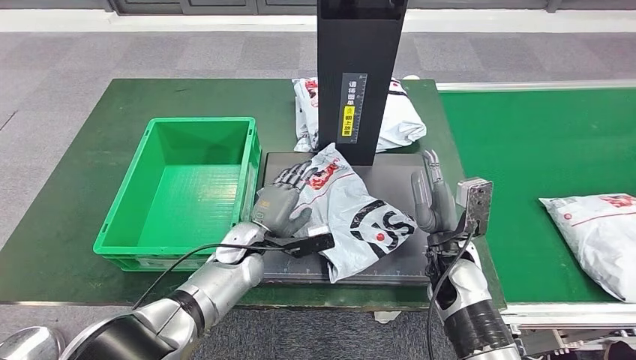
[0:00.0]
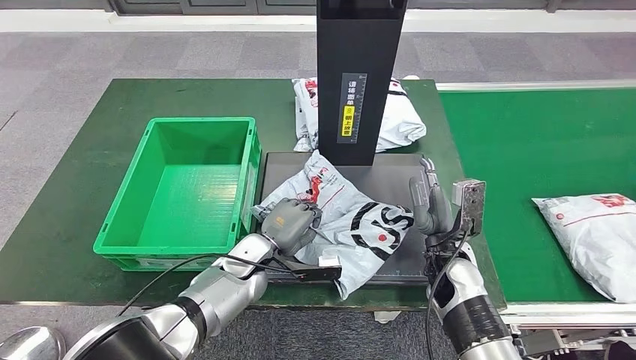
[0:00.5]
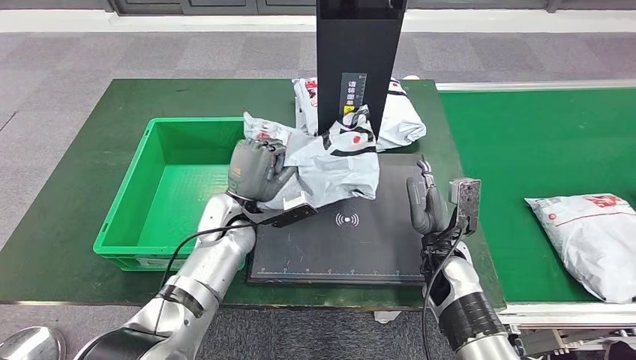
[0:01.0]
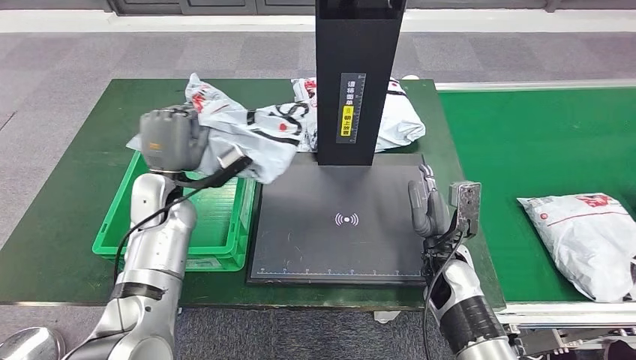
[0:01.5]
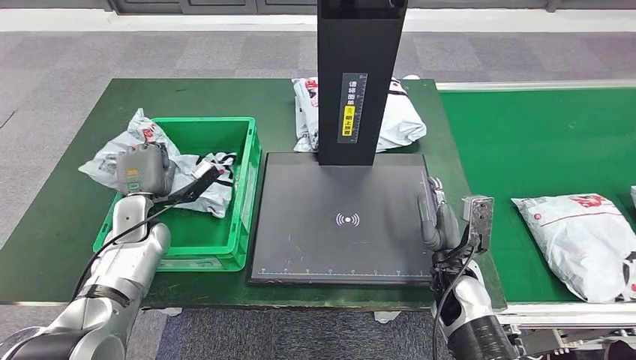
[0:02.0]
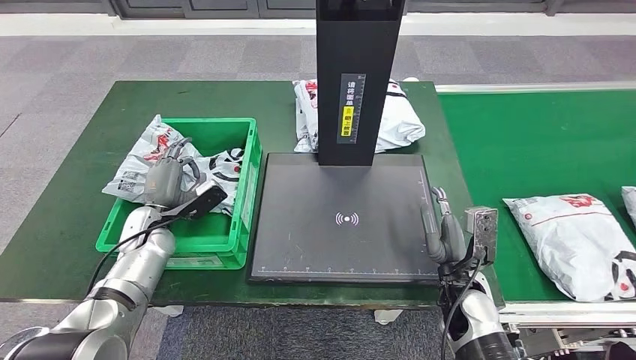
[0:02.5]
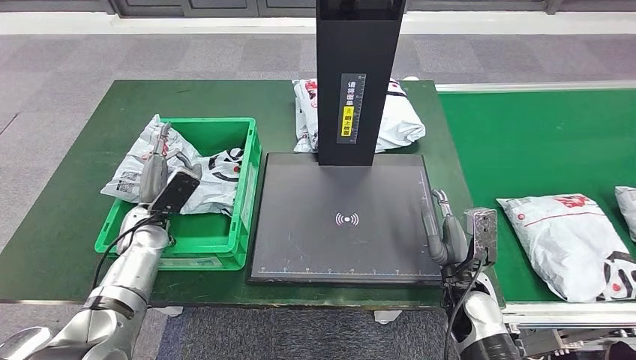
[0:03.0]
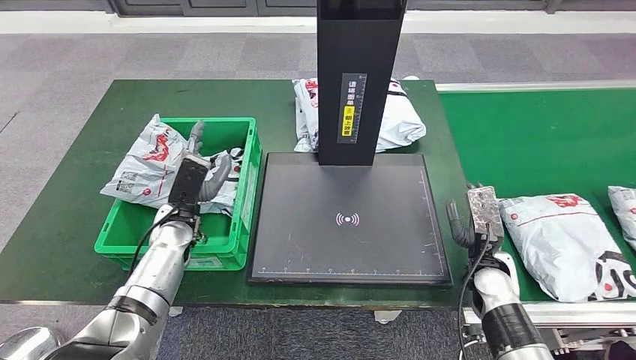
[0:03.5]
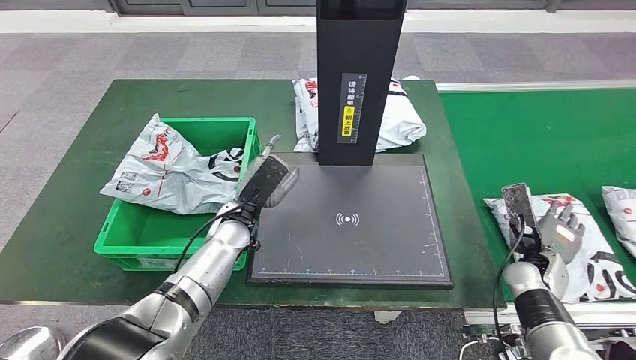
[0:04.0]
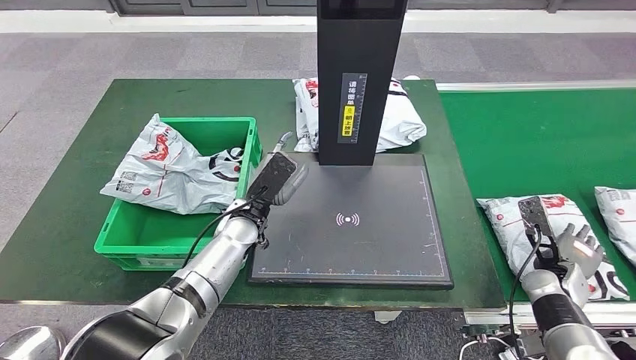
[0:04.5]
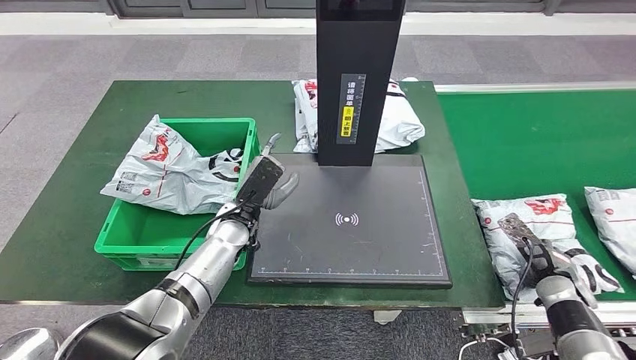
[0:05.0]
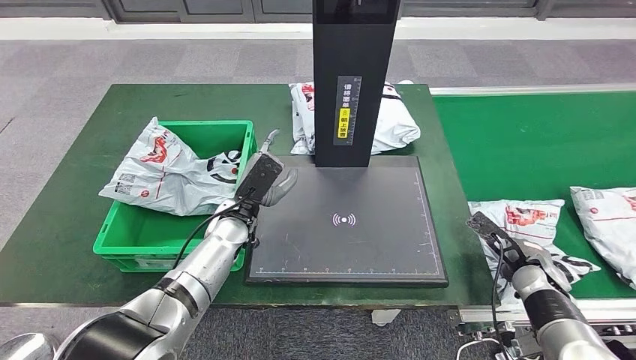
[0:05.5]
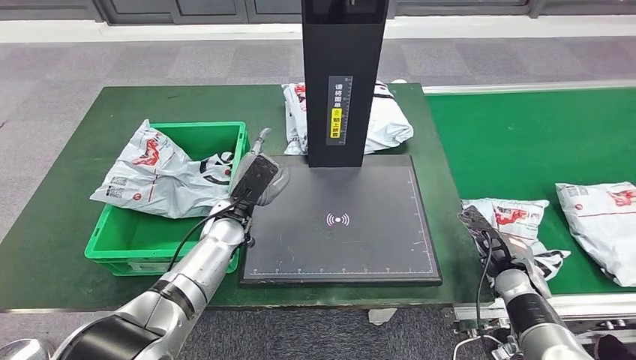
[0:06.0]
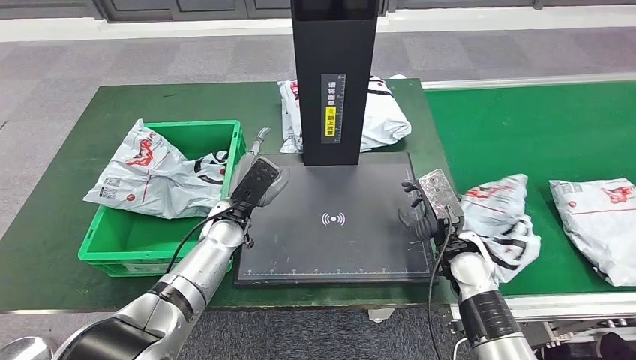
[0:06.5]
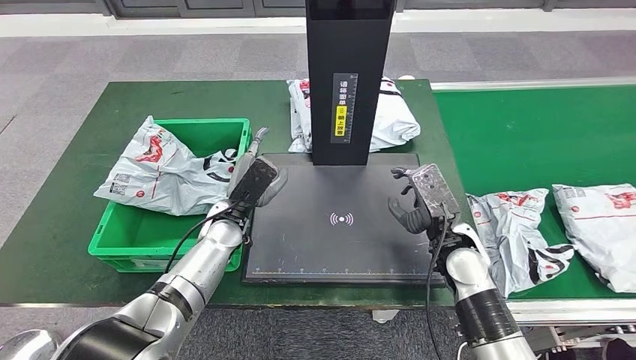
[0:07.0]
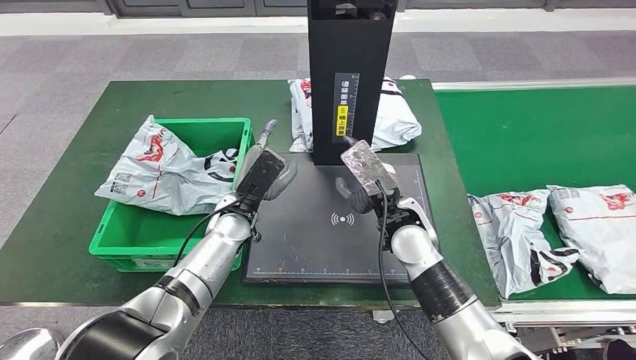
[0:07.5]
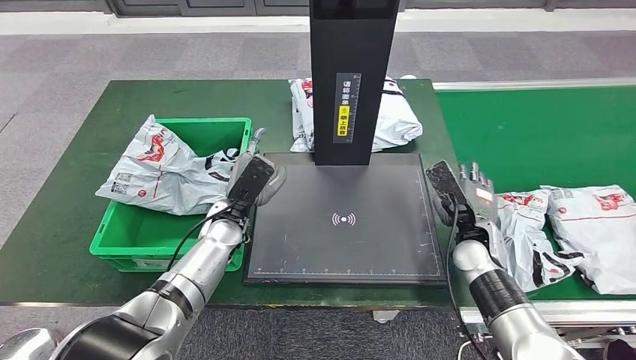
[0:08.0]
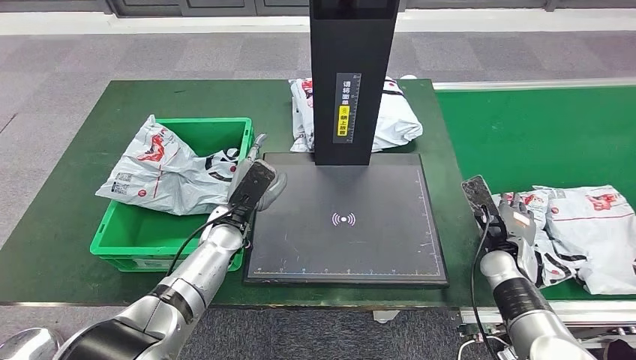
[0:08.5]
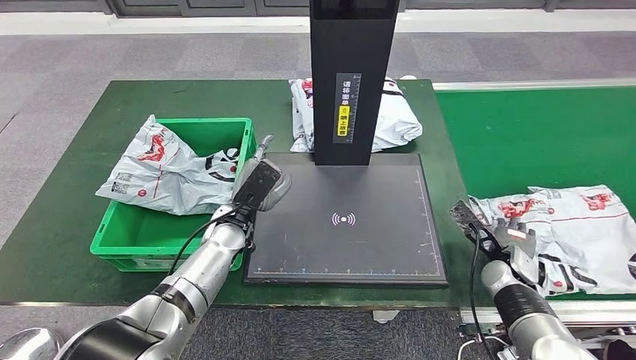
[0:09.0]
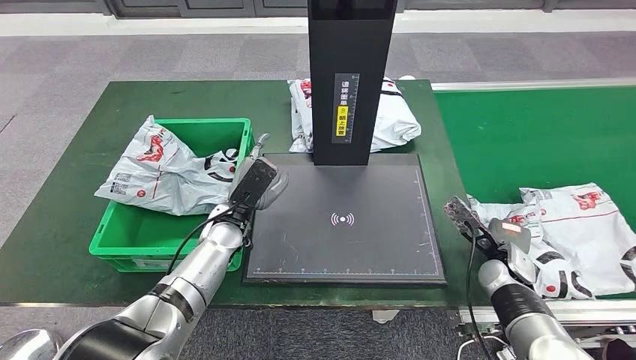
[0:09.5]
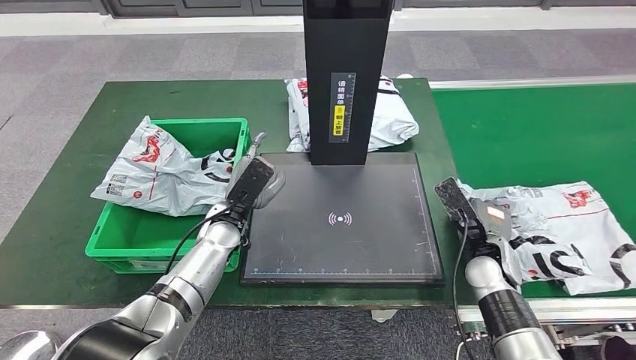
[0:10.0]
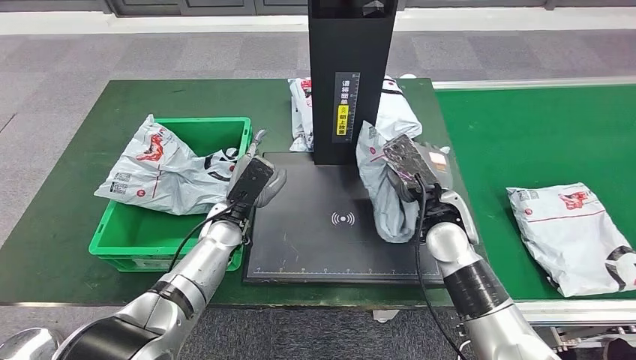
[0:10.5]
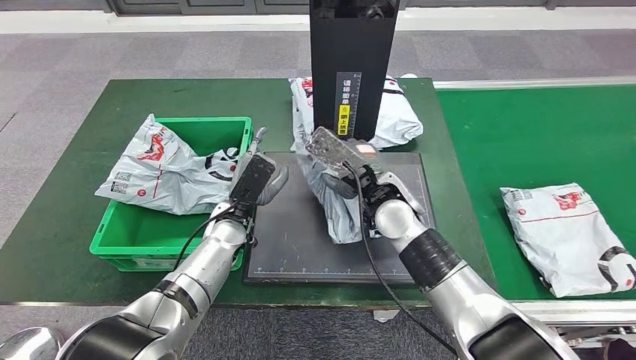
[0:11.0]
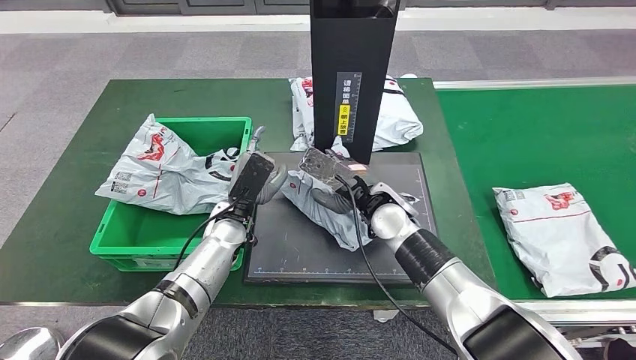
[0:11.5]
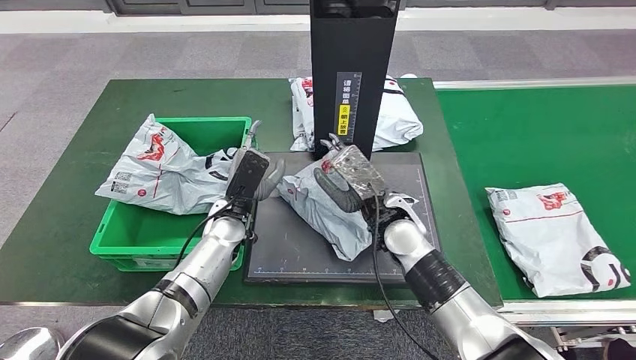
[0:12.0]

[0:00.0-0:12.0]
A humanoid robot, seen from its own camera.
Step, 0:00.0 to 0:01.5: Pick up the parcel from the inbound machine.
Step, 0:02.0 to 0:04.0: Put the parcel inside the courier box.
Step, 0:09.0 to 0:10.5: Pick up the parcel from the conveyor belt.

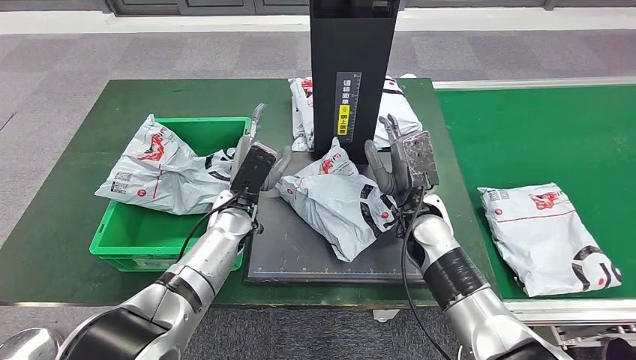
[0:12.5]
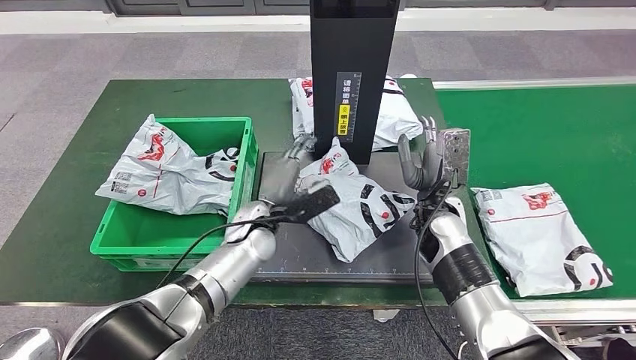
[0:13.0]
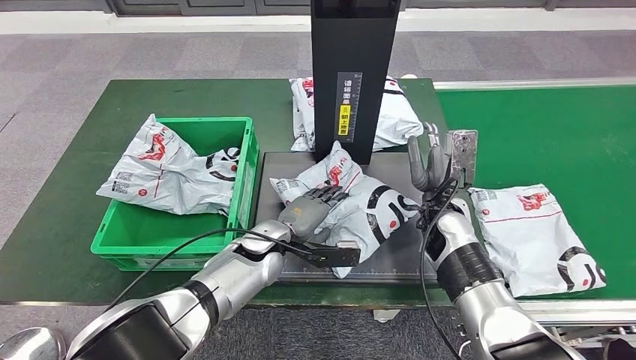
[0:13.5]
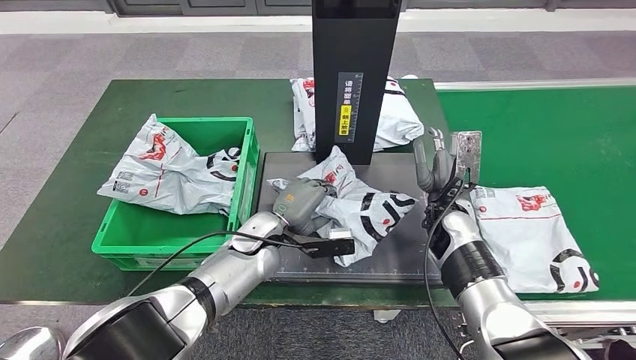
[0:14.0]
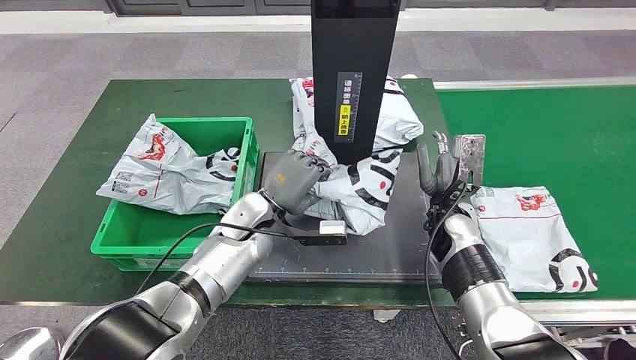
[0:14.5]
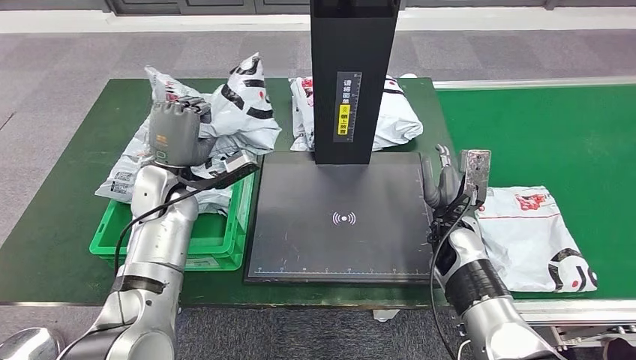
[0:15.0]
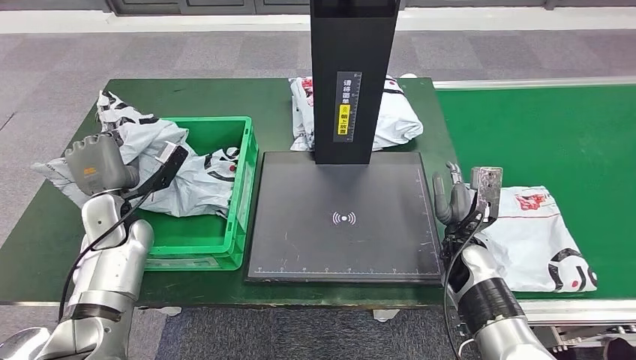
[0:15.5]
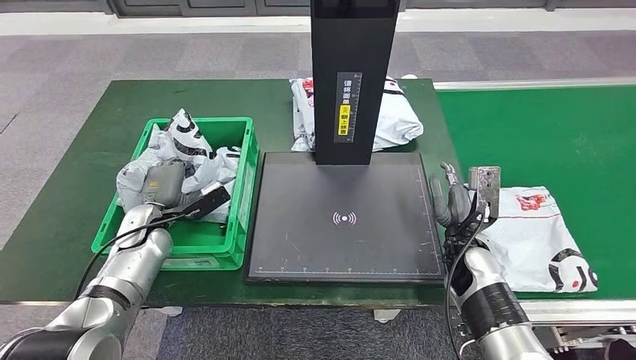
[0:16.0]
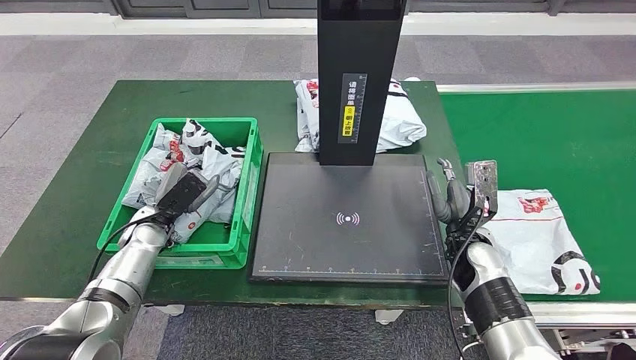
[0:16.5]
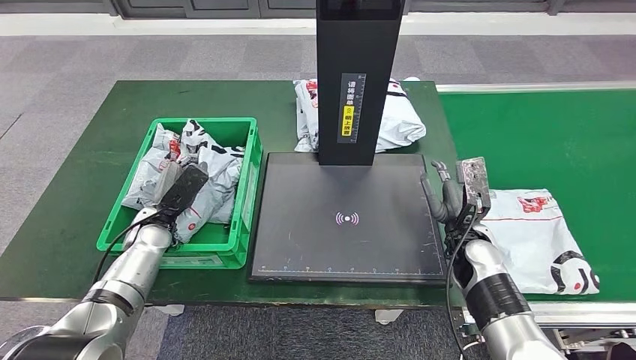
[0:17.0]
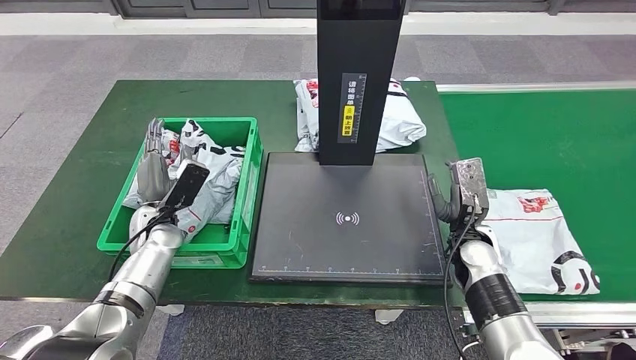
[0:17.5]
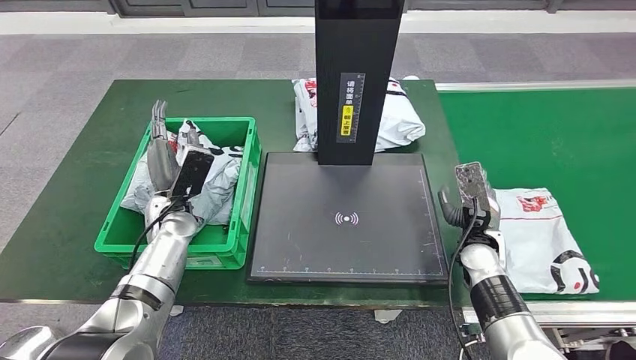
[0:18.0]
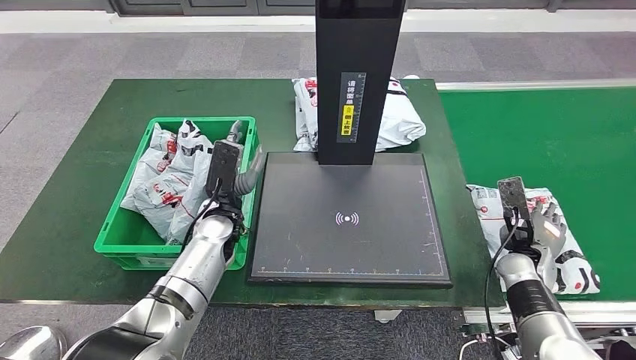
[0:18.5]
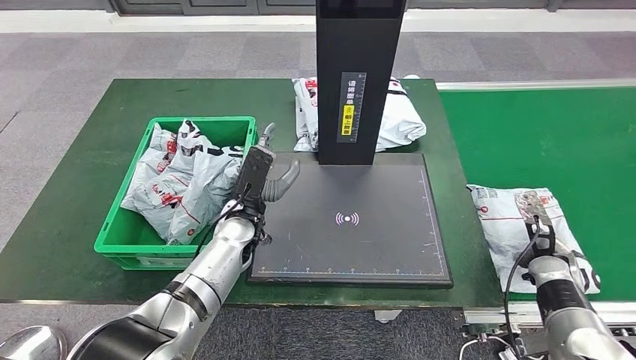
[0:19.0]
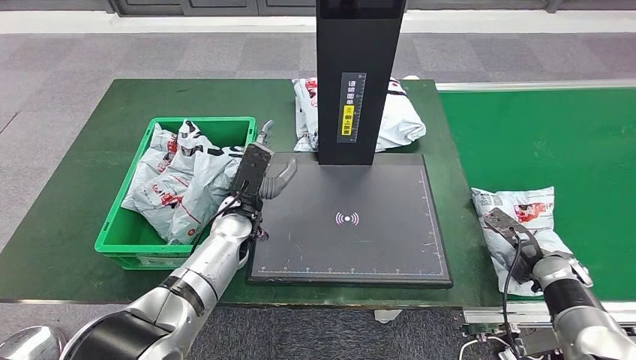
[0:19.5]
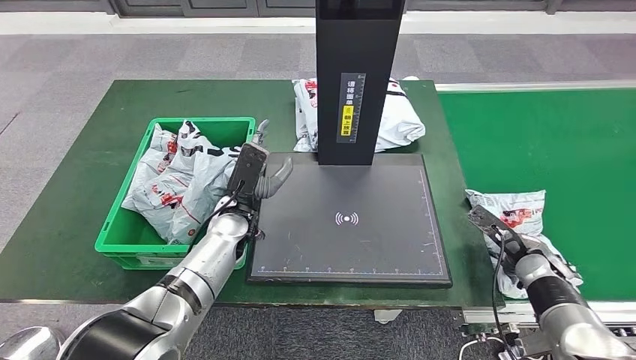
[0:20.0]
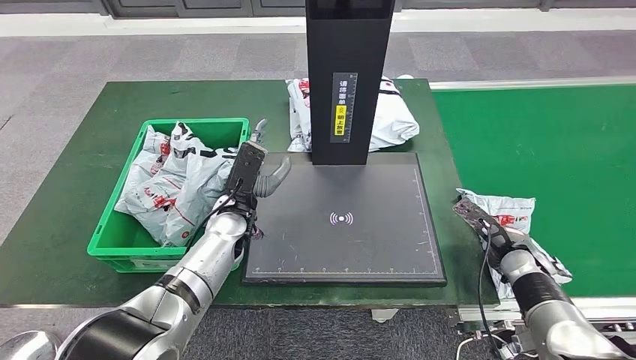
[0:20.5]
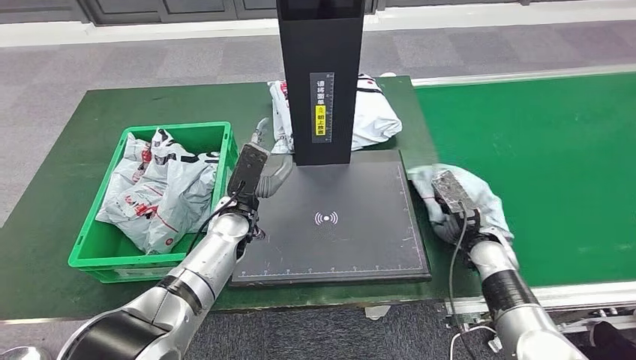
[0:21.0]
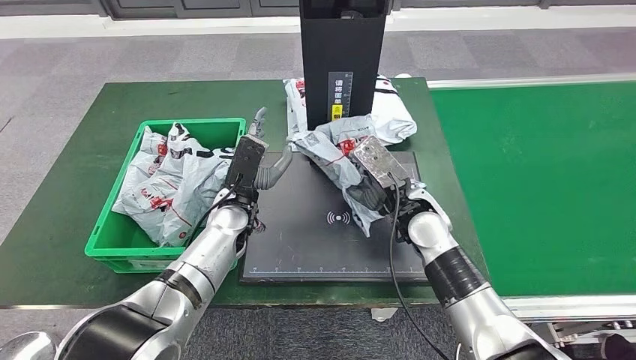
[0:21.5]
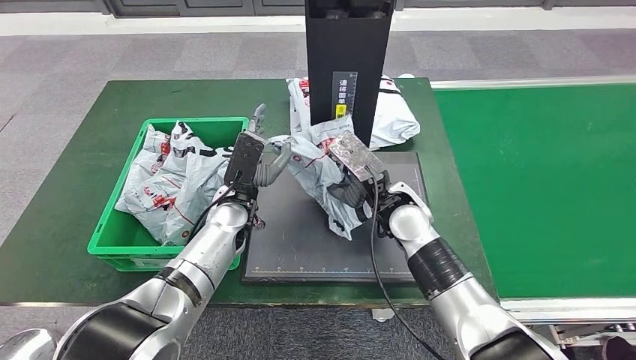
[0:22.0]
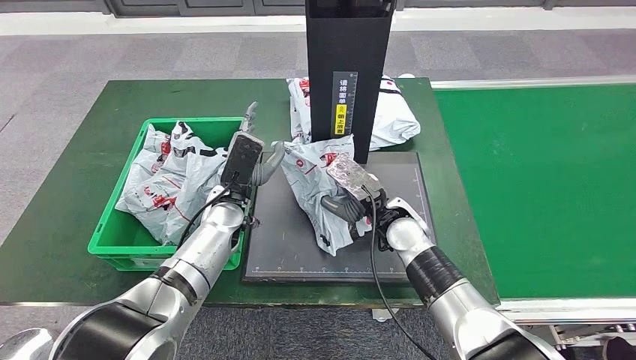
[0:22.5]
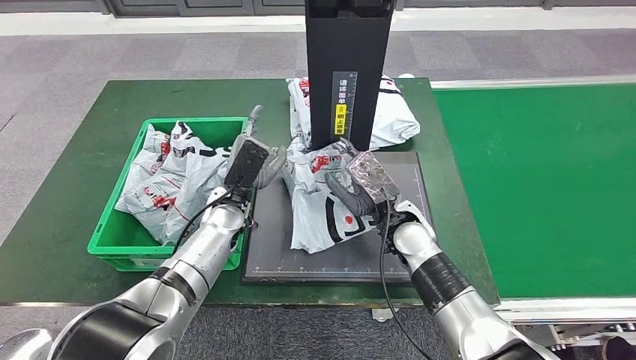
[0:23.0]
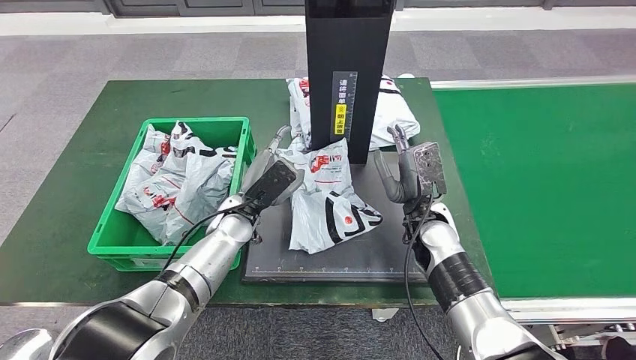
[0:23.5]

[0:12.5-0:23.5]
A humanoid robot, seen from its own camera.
Step, 0:13.5 to 0:15.0: Pick up the parcel from the inbound machine.
Step, 0:15.5 to 0:17.5: Place the parcel into the delivery box.
Step, 0:20.5 to 0:21.0: Pick up the parcel from the conveyor belt.
Step, 0:21.5 to 0:22.5: Place the parcel onto the inbound machine.
0:16.0 to 0:18.0: The left hand heads to the right, covering some 5 cm.
